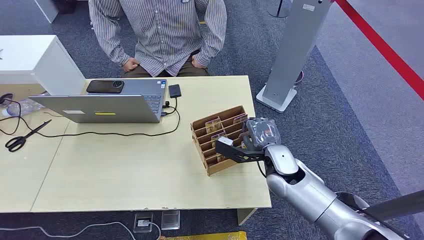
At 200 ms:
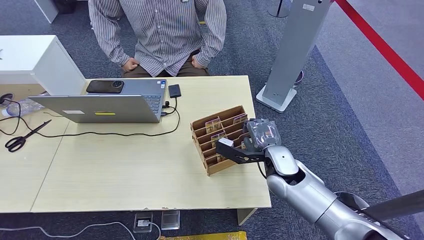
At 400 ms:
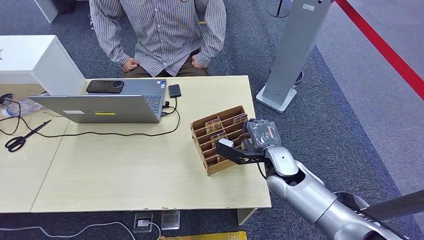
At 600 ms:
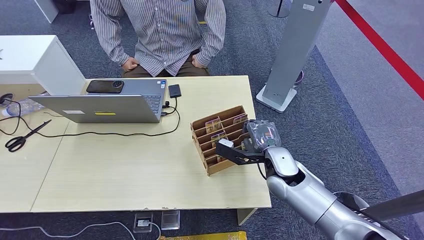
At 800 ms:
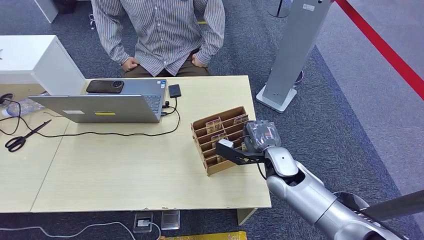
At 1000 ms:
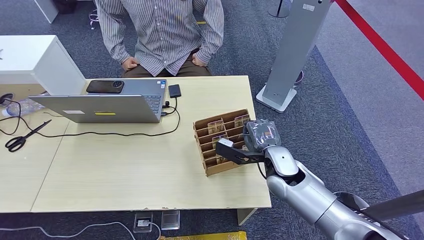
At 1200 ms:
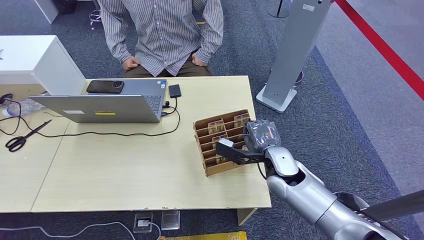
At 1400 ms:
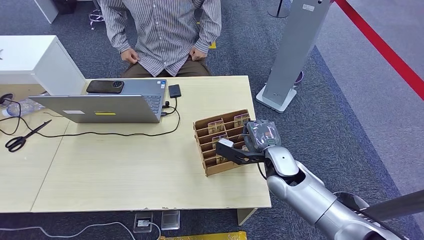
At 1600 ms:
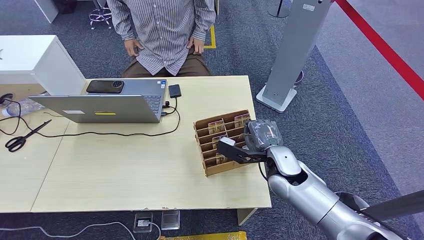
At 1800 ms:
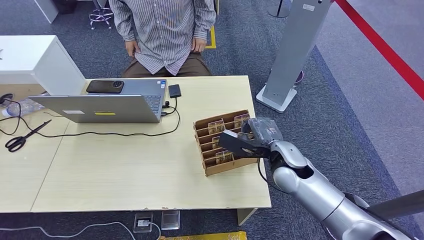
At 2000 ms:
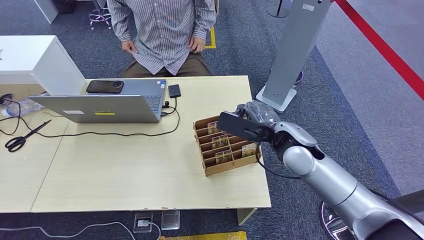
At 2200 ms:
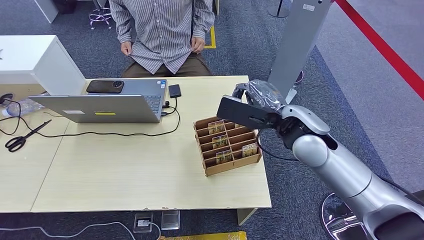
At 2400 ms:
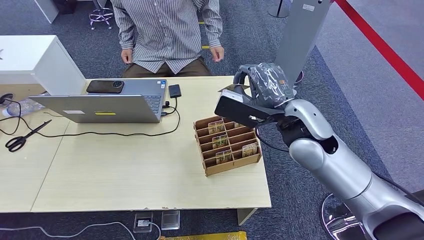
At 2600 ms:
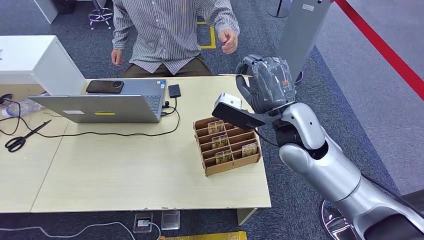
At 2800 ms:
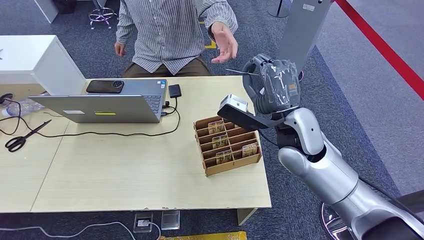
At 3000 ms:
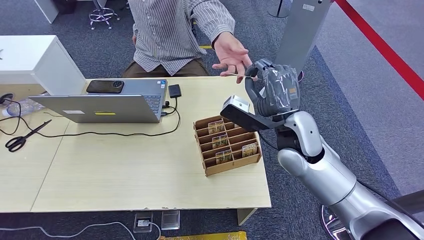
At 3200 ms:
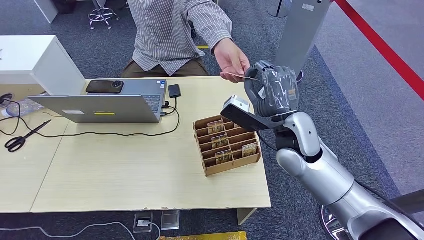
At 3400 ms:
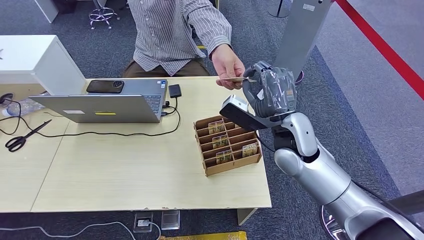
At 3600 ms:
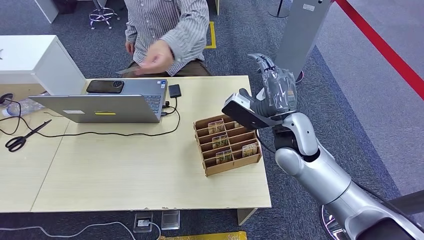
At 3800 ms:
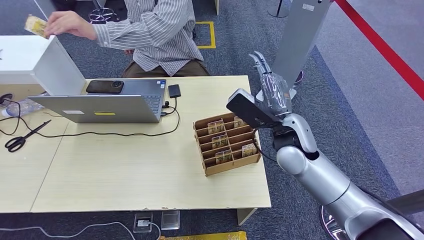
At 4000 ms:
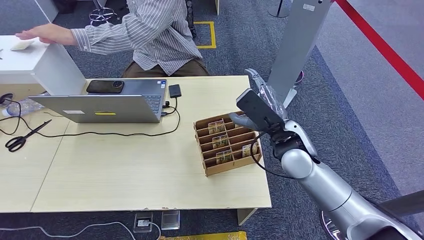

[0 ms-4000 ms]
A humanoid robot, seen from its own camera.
Step, 0 ms to 2000 ms: Pick up the key card from the card box.
Step, 3200 ms to 4000 ms: Hand the key card to the target.
1400 ms to 2600 ms: The right hand heads upward, covering approximately 15 cm.
2600 ms to 4000 ms: The right hand heads downward, covering roughly 5 cm.

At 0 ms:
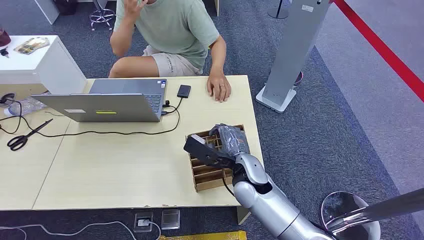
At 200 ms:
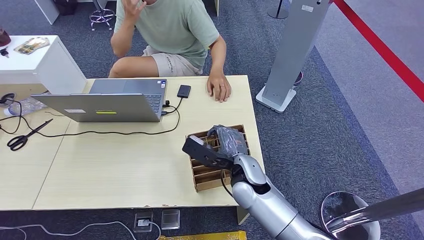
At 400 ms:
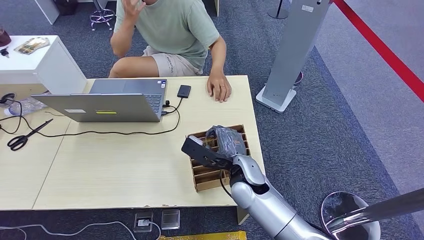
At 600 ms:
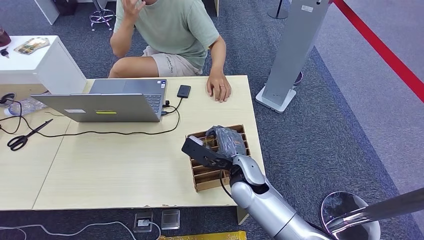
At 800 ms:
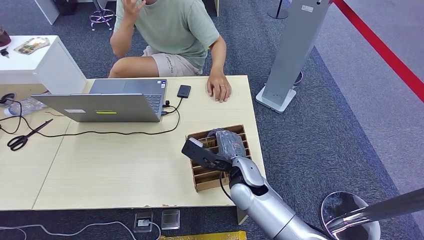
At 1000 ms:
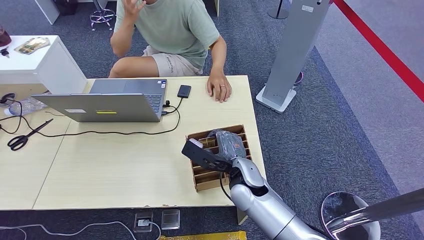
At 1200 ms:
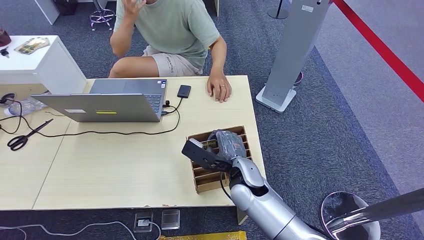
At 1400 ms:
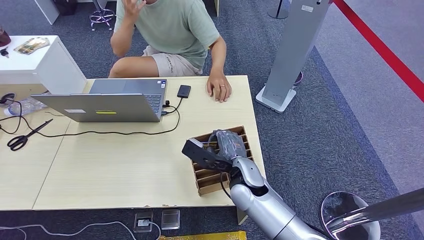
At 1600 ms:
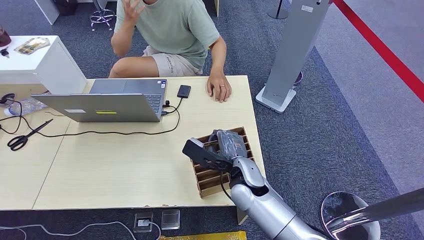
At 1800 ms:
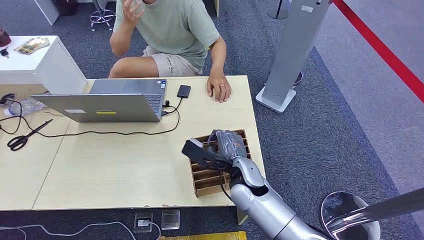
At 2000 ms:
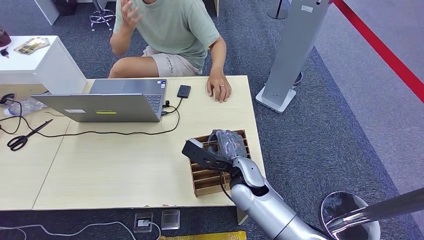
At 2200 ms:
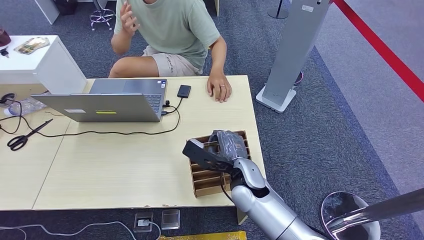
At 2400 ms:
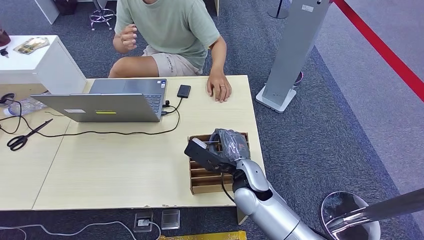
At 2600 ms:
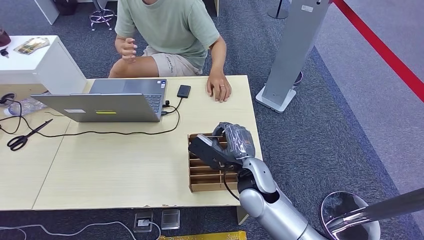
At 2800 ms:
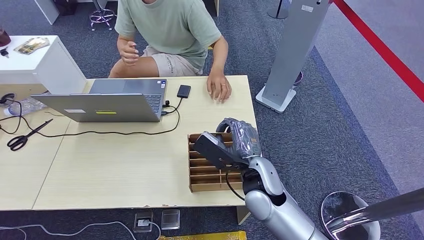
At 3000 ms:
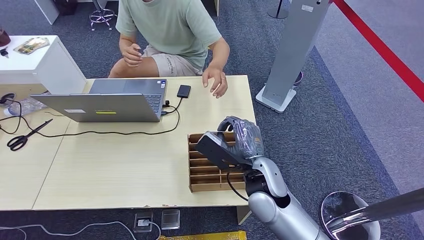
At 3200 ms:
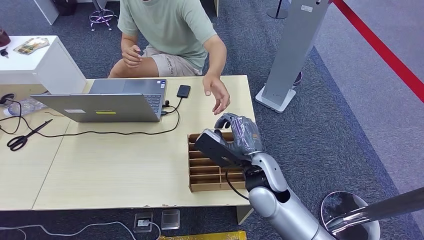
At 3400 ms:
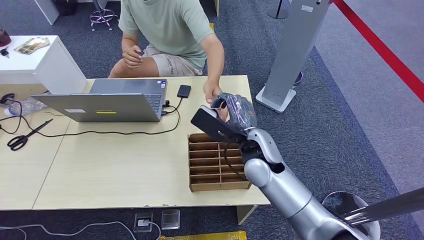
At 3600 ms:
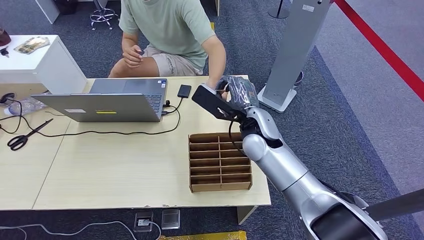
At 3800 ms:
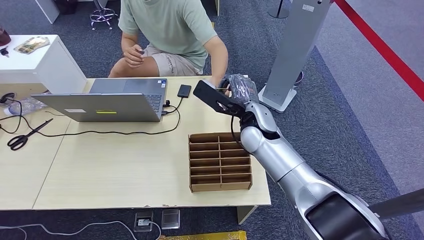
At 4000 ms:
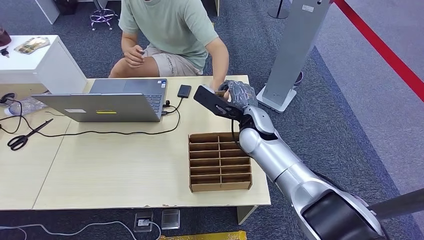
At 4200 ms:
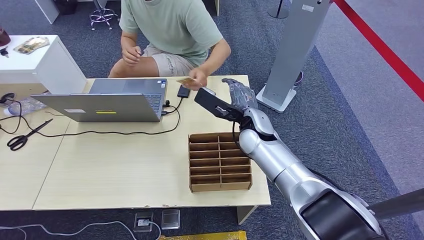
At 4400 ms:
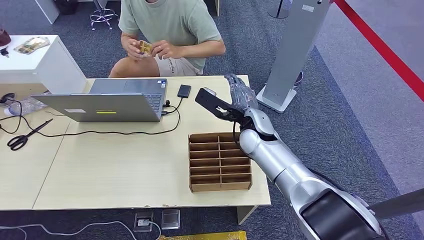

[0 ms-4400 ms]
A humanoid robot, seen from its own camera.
Step, 0 ms to 2600 ms: Pick up the key card from the card box.
Step, 3800 ms to 4200 ms: Hand the key card to the target.
1400 ms to 3000 ms: The right hand goes approximately 5 cm upward.
3000 ms to 4400 ms: The right hand shifts roughly 15 cm forward.
